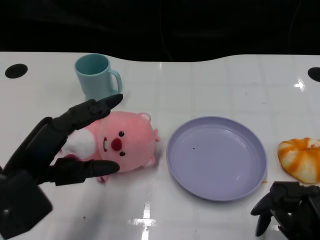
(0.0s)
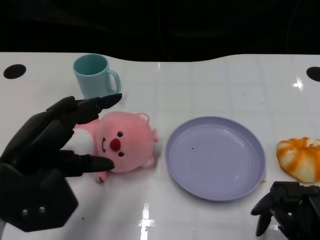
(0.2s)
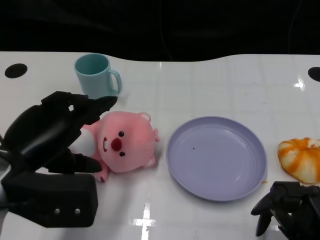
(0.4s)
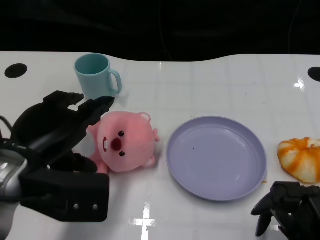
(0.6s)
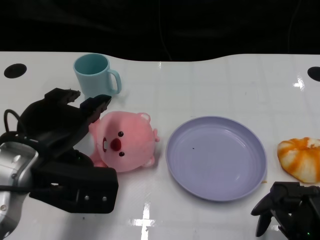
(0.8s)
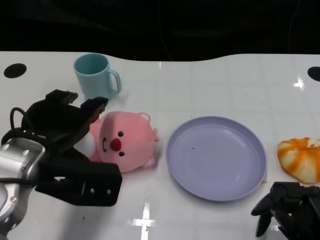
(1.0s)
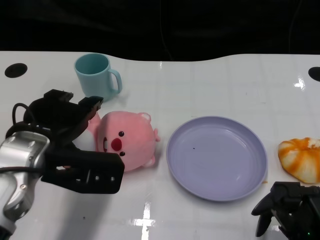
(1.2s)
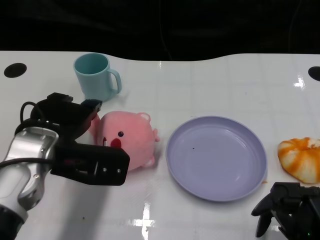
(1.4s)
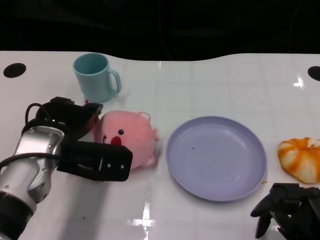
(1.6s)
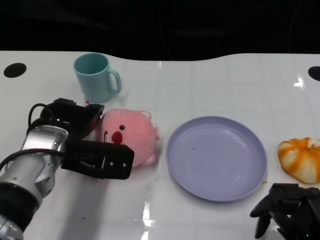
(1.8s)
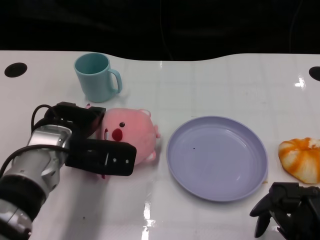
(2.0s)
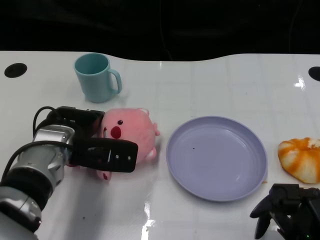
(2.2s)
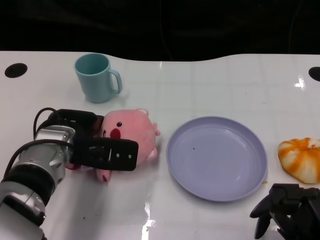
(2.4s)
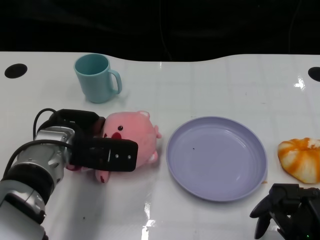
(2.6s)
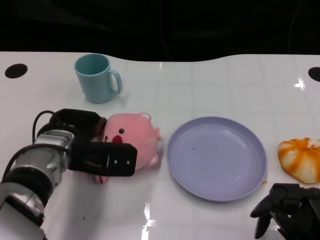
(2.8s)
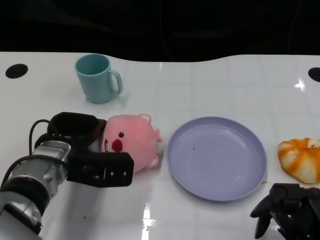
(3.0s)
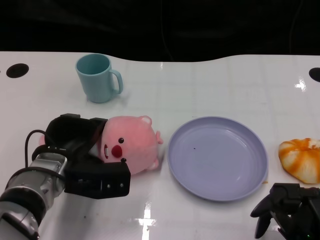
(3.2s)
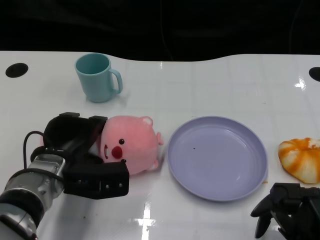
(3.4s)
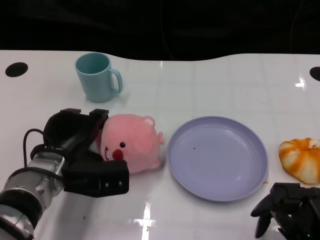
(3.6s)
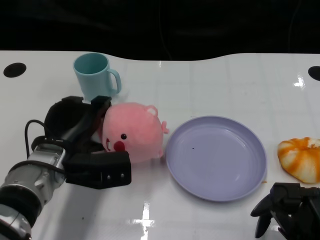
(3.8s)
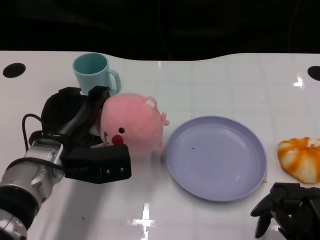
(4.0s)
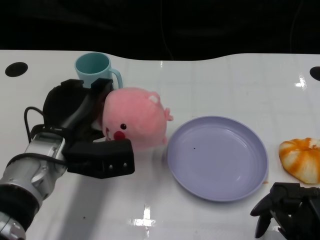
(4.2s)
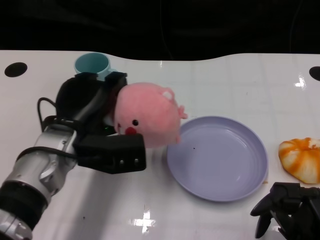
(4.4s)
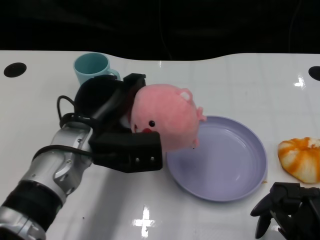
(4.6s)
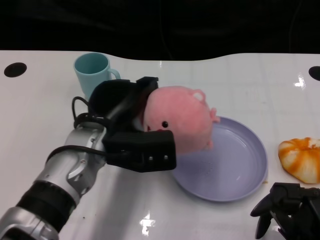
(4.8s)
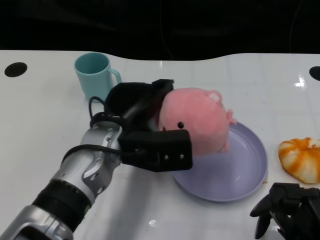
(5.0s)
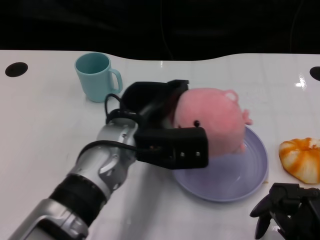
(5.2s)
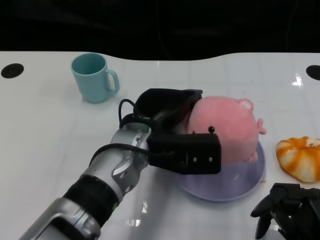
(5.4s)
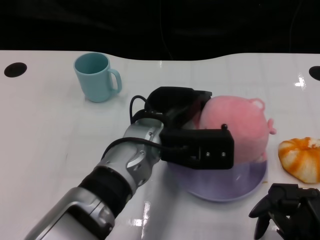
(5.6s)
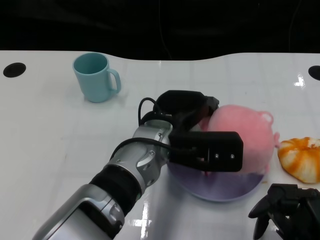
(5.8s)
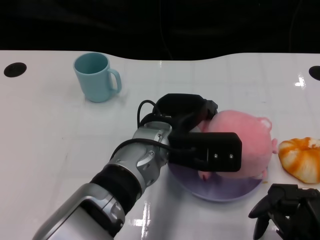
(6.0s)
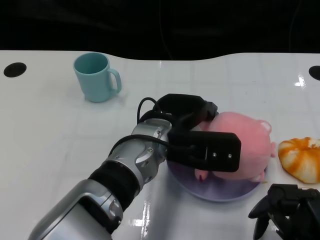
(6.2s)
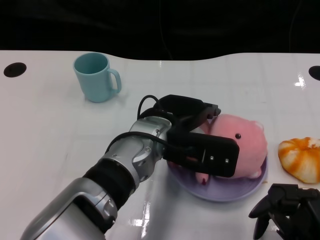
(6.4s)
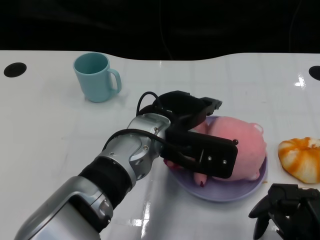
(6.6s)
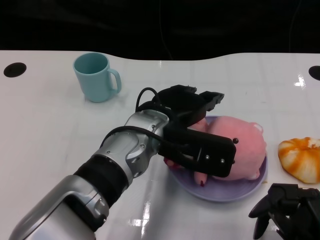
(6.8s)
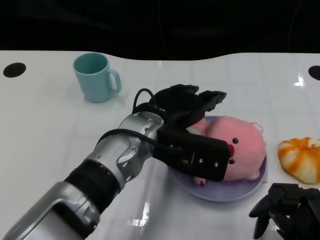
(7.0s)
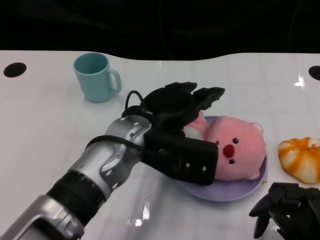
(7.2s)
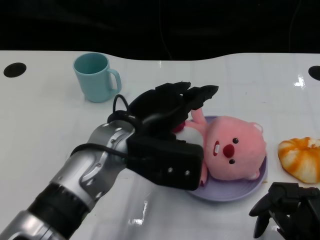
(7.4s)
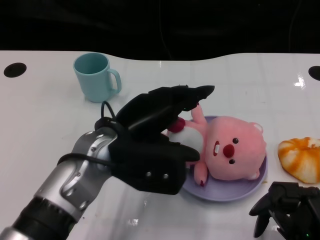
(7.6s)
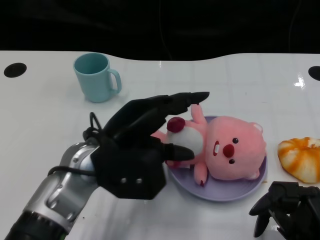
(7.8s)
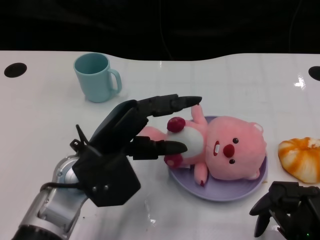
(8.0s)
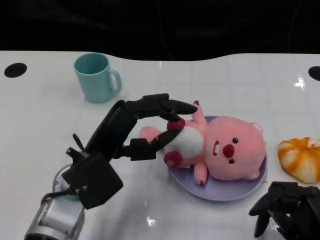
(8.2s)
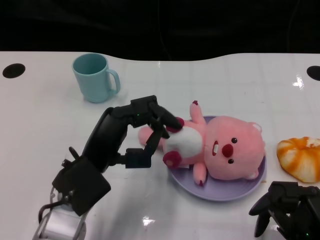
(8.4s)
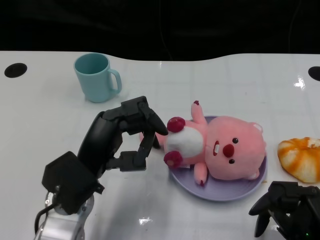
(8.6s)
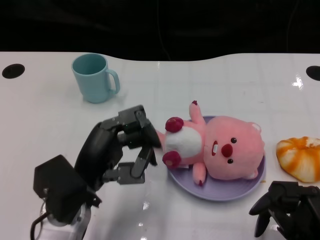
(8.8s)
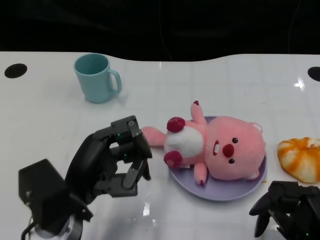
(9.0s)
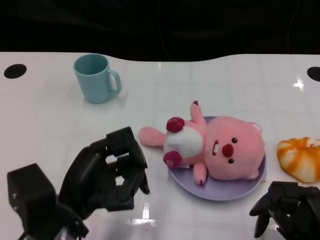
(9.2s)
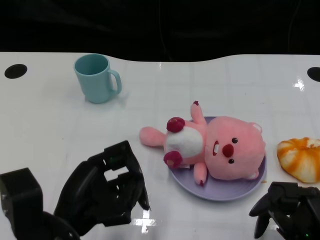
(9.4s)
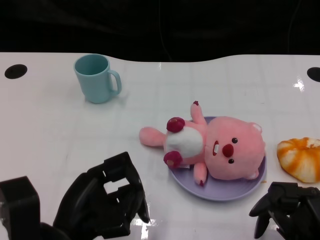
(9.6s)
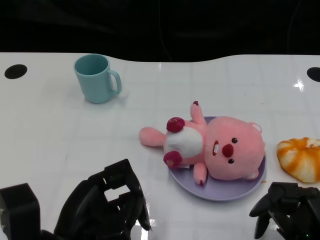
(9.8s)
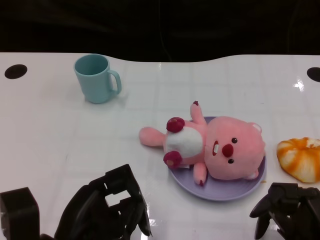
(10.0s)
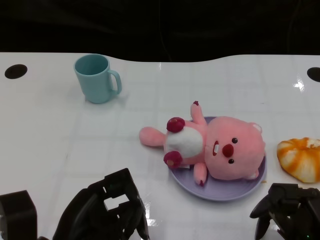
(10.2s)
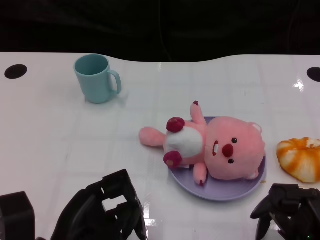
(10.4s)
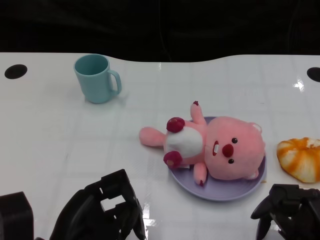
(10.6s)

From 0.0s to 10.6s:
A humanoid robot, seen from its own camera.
Task of the whole recording: Pick up the doll on one side of the plate and place it into the plate.
Step, from 0.0s to 3.6s: Grasp the pink doll with the left gripper.
Step, from 3.8s to 7.0s: Place the pink doll into the plate with the left gripper.
From 0.0s to 1.6s: The left hand heads forward, covering about 10 cm.
From 1.6s to 3.0s: The left hand is displaced downward by roughly 5 cm.
From 3.0s to 4.6s: The left hand is displaced upward by approximately 5 cm.
From 4.6s to 6.0s: The left hand shifts about 10 cm to the right.
From 6.0s to 7.6s: The left hand goes approximately 10 cm to the left.
From 7.6s to 9.0s: The left hand moves to the left, backward and downward, some 10 cm.
From 9.0s to 10.6s: The left hand is displaced backward by about 5 cm.
